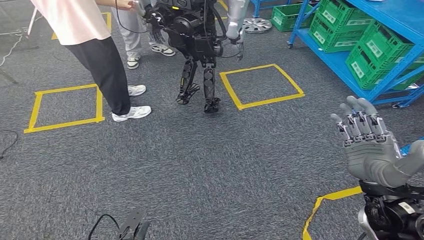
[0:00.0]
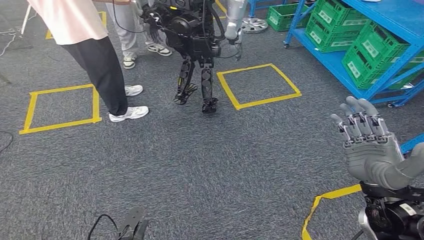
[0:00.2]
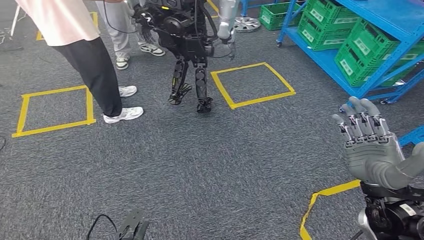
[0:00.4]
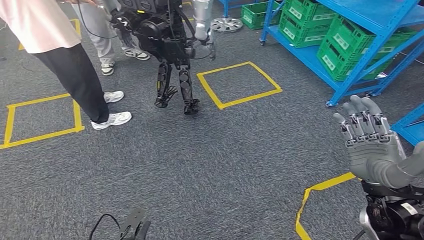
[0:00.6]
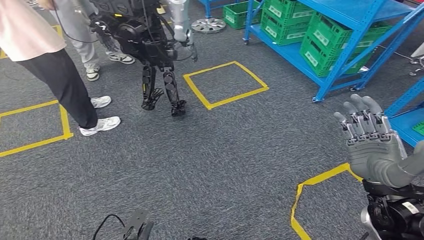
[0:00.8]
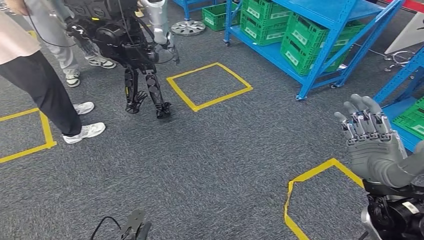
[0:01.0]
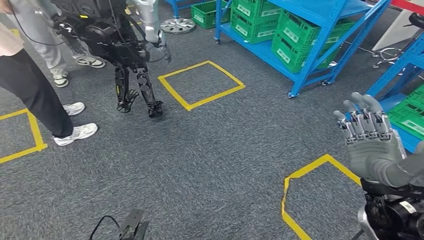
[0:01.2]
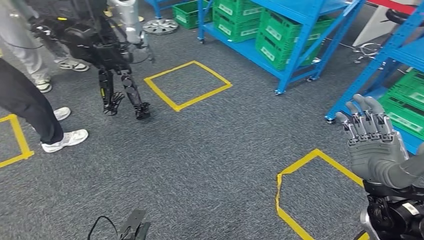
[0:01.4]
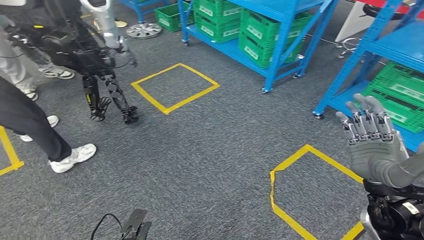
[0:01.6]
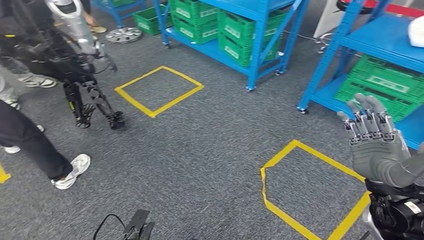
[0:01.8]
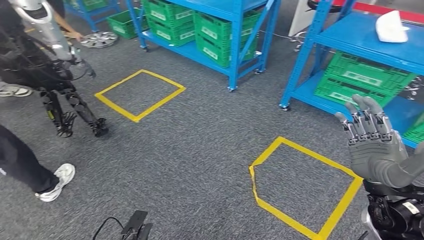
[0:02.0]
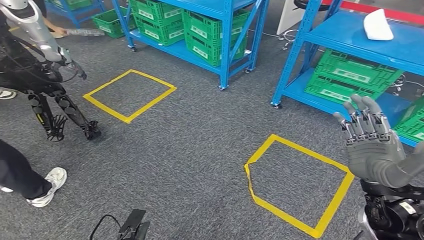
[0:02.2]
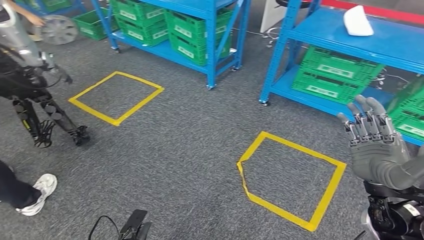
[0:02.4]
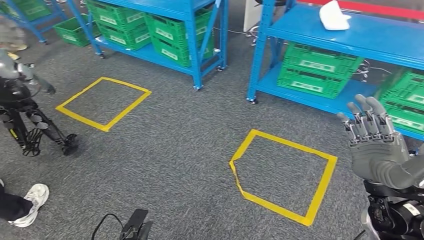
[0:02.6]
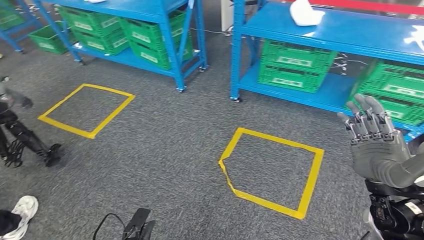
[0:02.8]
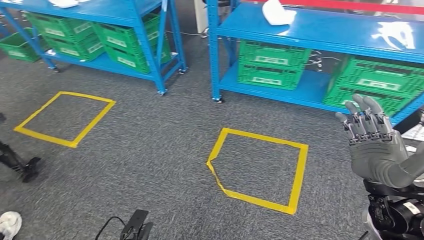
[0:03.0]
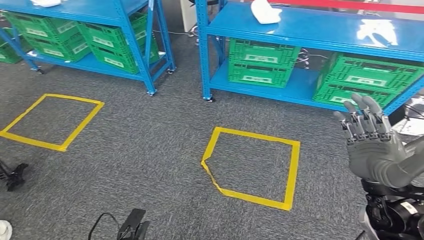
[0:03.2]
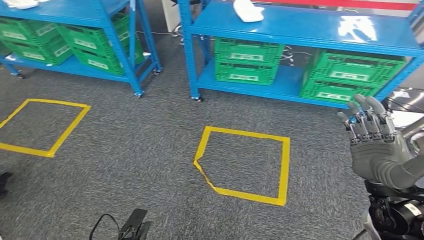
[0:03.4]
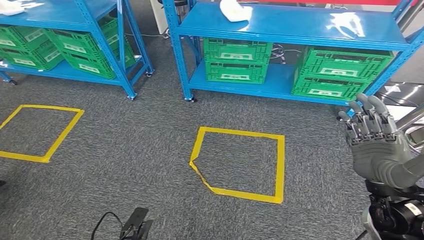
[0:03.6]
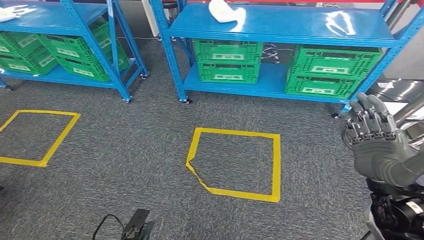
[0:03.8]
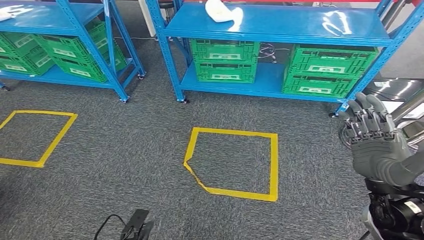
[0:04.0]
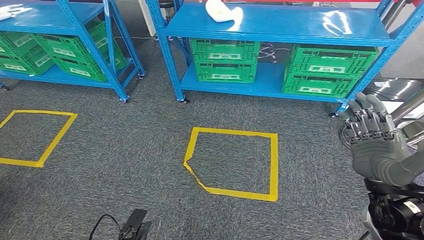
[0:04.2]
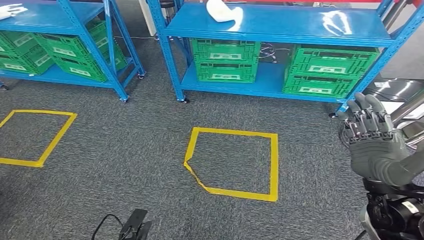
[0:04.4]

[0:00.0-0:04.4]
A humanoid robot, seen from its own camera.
Step, 0:00.0 to 0:04.2: Move to the initial position at the workbench.
